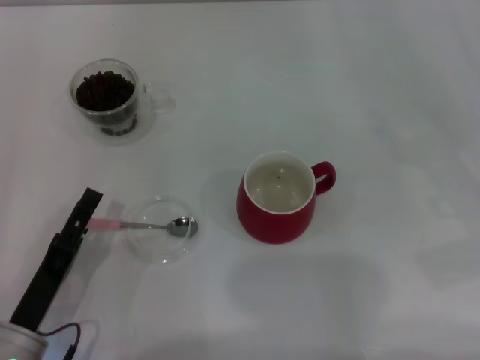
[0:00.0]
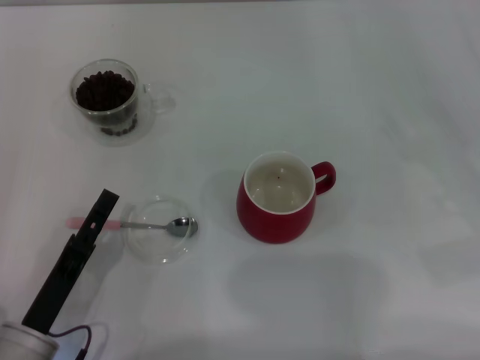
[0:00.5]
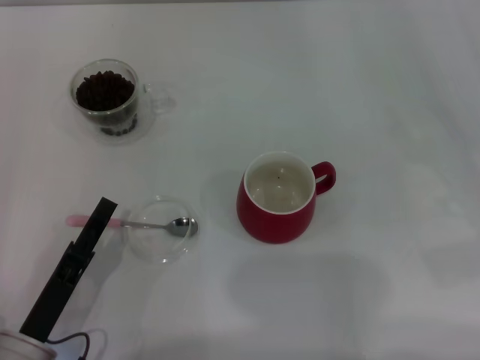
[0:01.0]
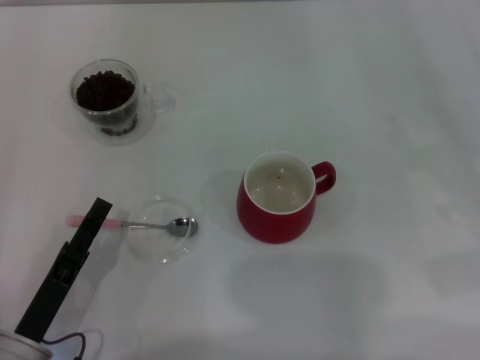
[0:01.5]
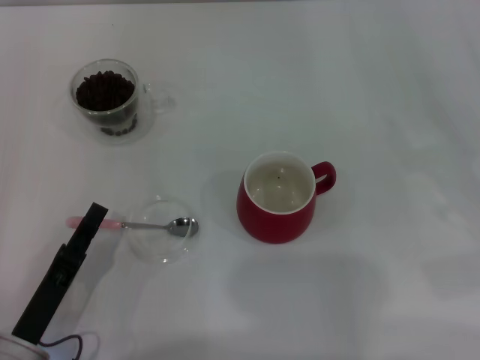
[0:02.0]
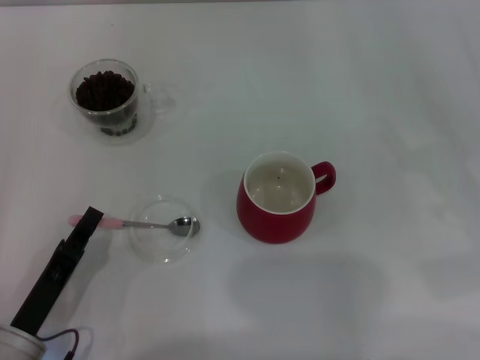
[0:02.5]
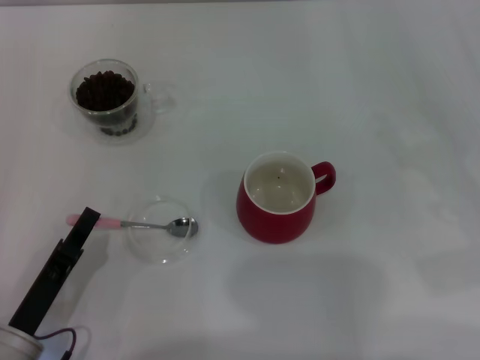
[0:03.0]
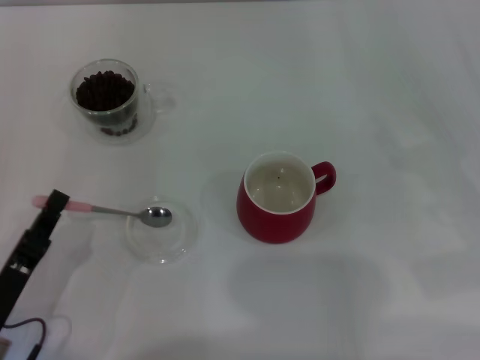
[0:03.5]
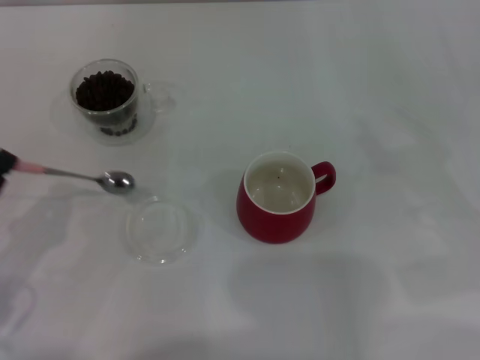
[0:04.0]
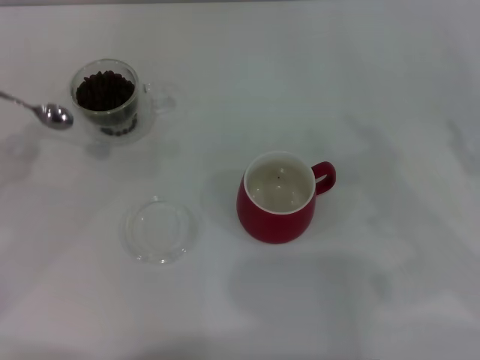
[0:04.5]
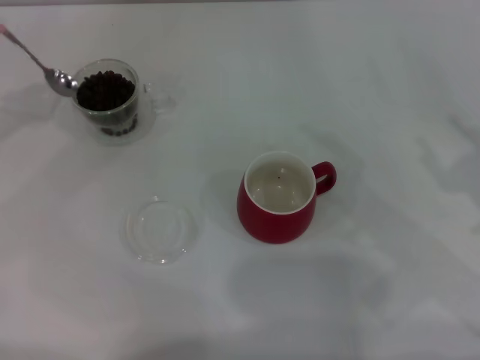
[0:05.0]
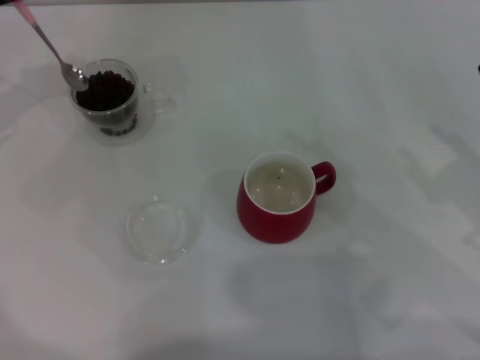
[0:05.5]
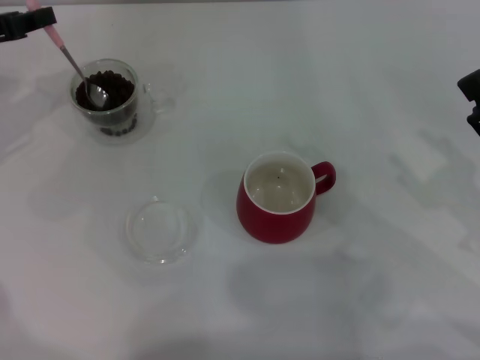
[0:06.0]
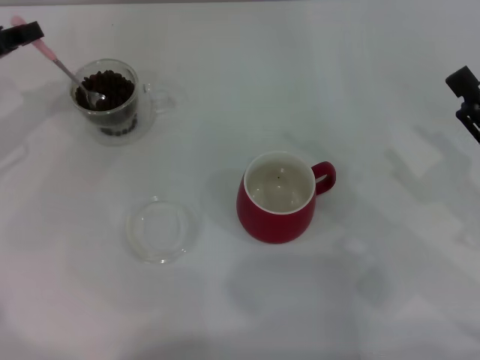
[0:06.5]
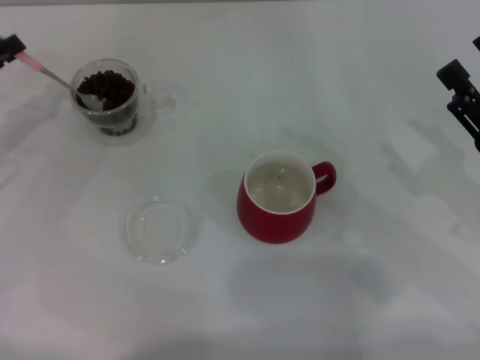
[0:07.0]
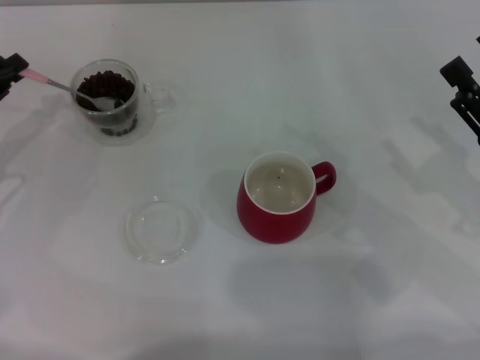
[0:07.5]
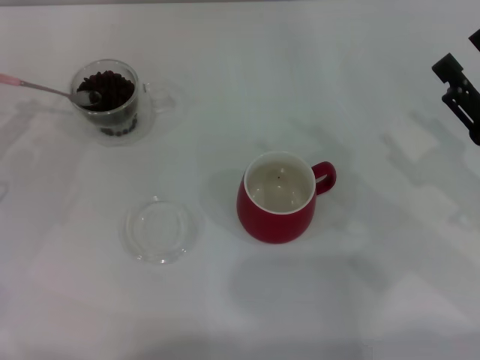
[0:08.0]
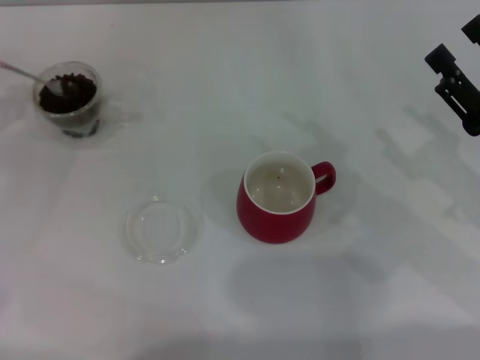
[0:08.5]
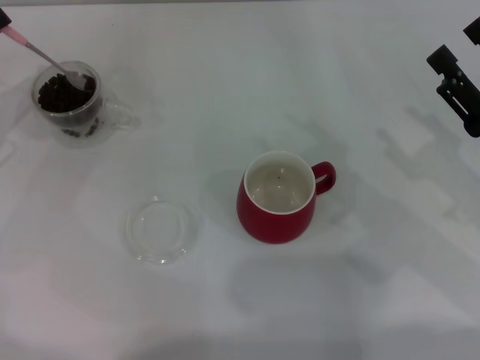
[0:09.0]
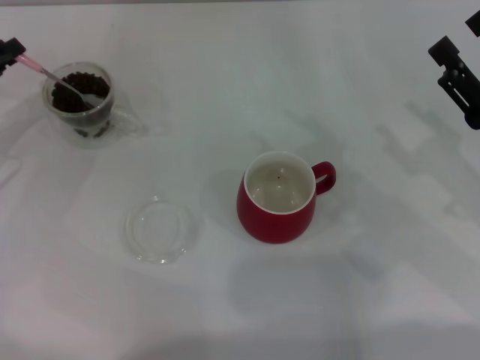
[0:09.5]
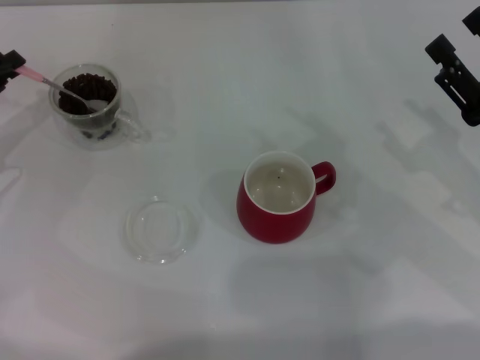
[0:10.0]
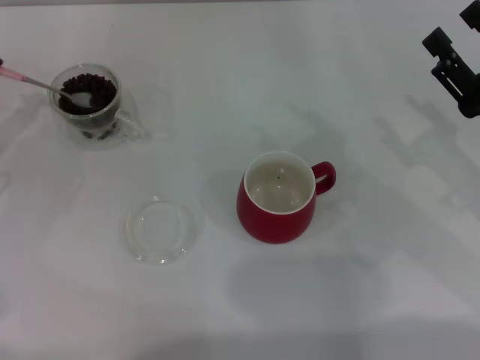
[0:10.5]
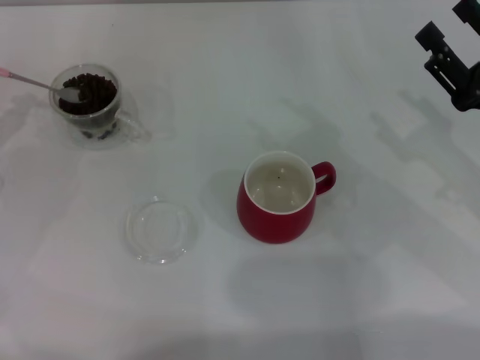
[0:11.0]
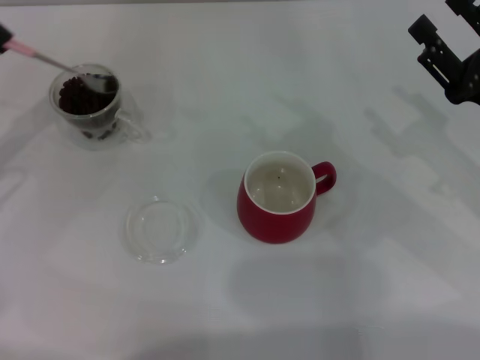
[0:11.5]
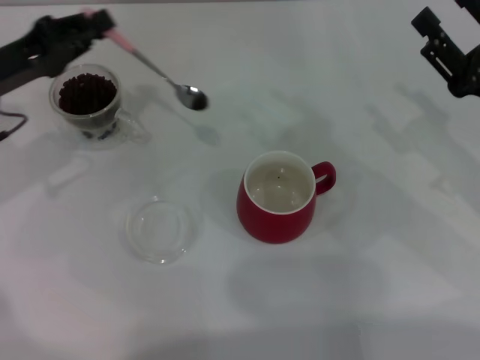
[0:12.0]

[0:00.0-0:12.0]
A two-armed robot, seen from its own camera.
Task of the whole recording: Use a pink spoon to take out the coffee beans from the glass and pour them into the red cup.
Step, 0:00.0 to 0:03.5: Pick up the spoon with the right gripper.
0:00.0 to 0:02.0: The left gripper closes its fingers.
0:02.0 to 0:04.0: The left gripper heads to the left, covering about 10 cm, and closes up.
0:04.0 to 0:06.0: The left gripper is displaced forward and upward by roughly 25 cm.
0:06.0 to 0:08.0: The left gripper shifts about 10 cm backward and downward.
0:10.0 to 0:12.0: The left gripper shifts about 5 cm to the right.

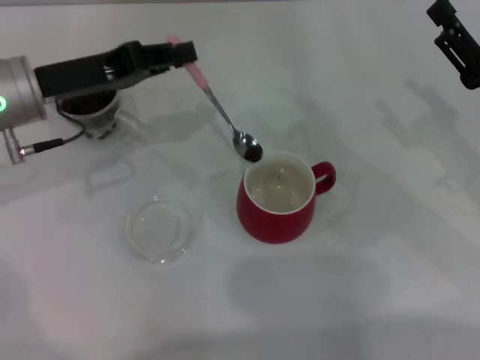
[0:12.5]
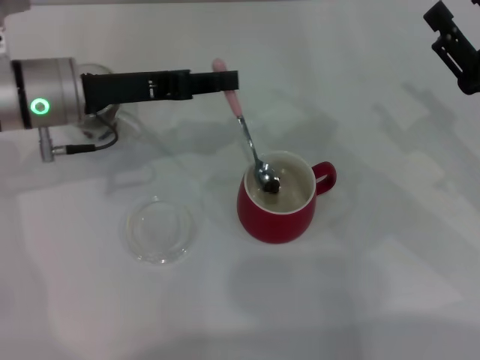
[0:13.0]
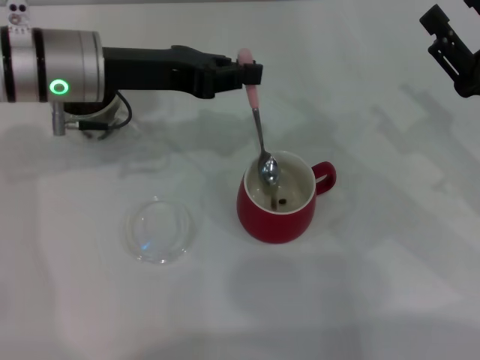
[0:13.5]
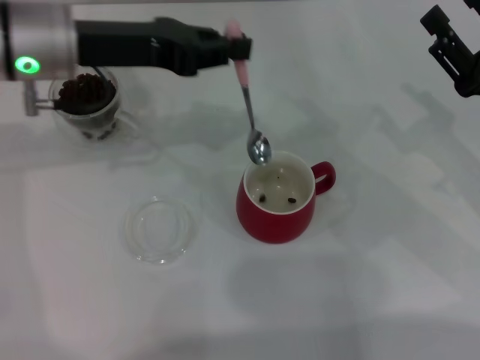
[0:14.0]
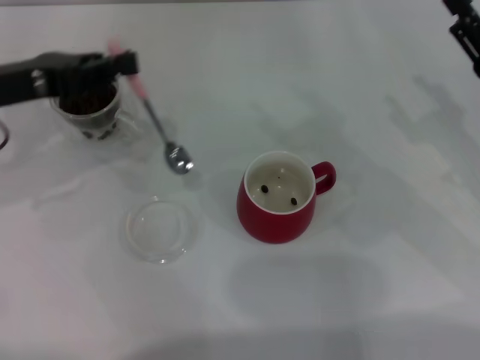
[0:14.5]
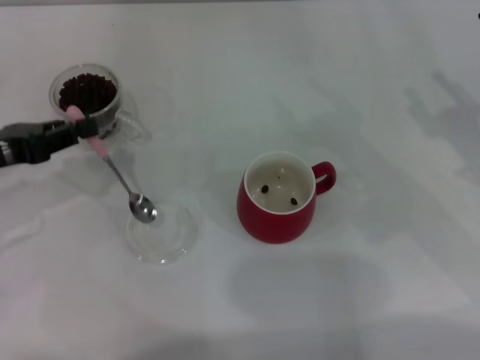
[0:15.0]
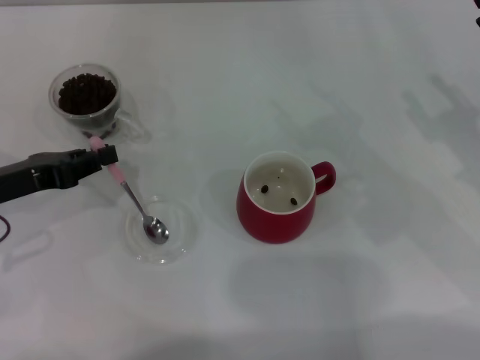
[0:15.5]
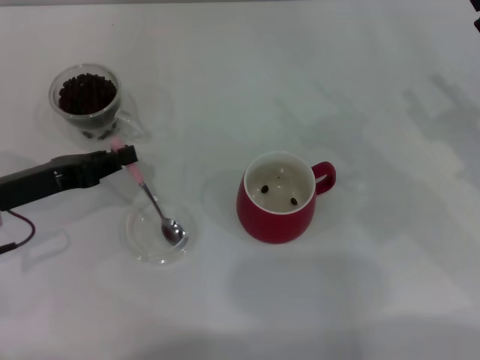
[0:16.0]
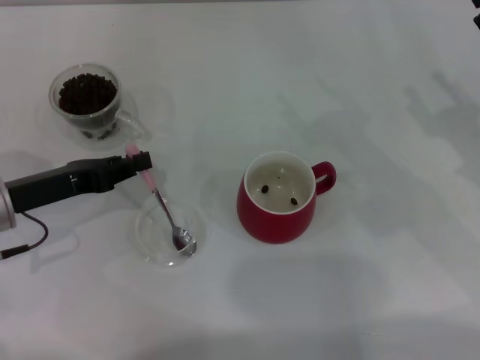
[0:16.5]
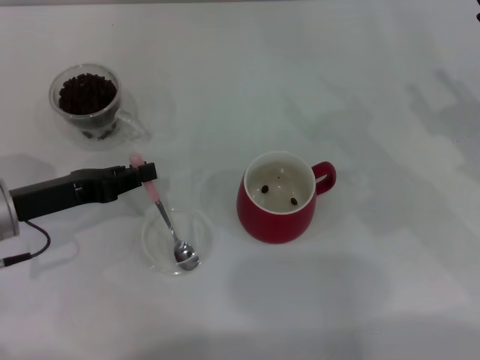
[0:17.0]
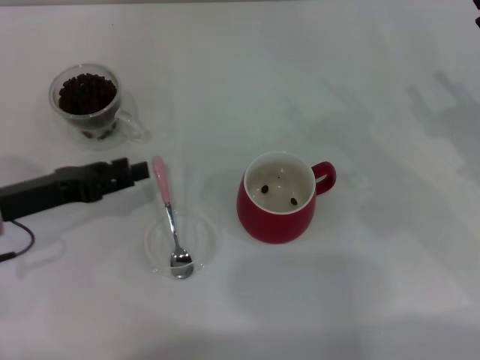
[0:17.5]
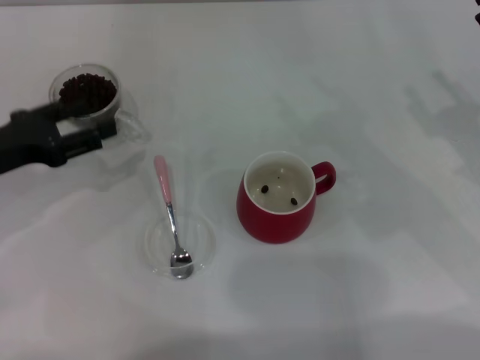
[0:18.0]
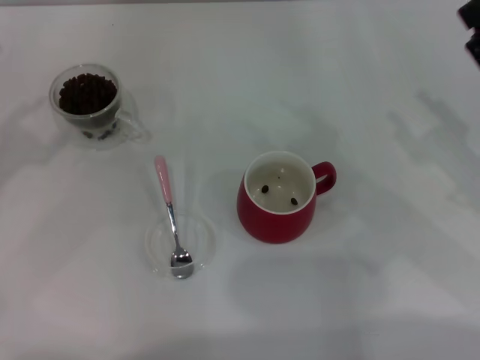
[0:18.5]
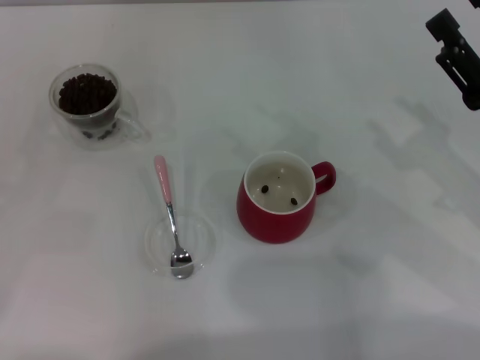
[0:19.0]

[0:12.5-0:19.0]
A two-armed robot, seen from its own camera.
Task of the whole recording: Use a pink spoon to take out the coffee beans from the glass and pour them into the red cup.
Step, 0:14.5 to 0:17.5: Place the spoon back in its original place with the right gripper.
0:12.5 to 0:14.5: The left gripper travels to the left by roughly 5 cm.
0:14.5 to 0:17.0: The left gripper is displaced downward by roughly 10 cm.
0:17.0 to 0:19.0: The left gripper travels to the left by about 15 cm, and opens its fingers.
